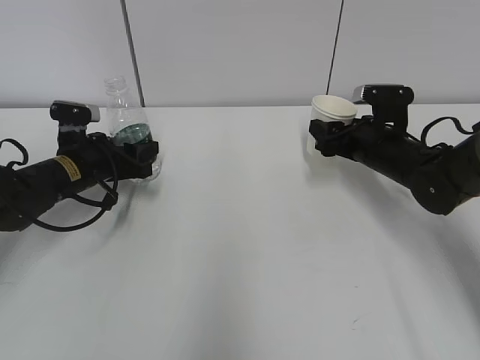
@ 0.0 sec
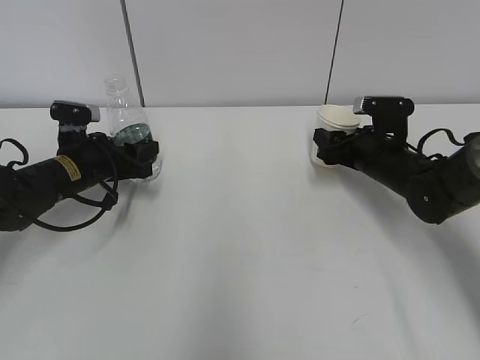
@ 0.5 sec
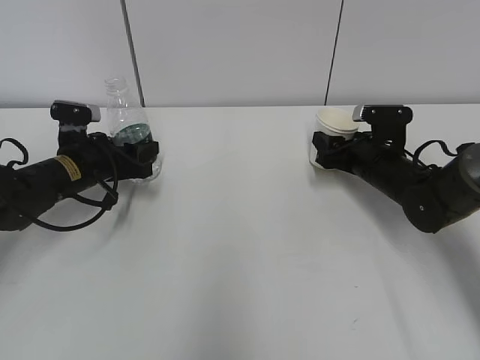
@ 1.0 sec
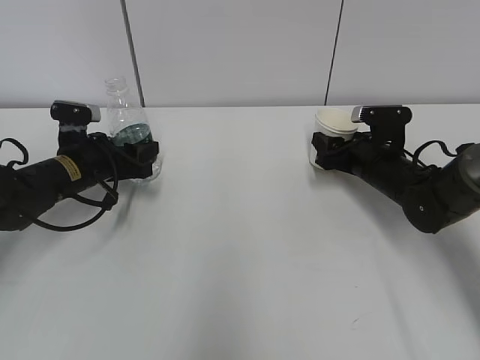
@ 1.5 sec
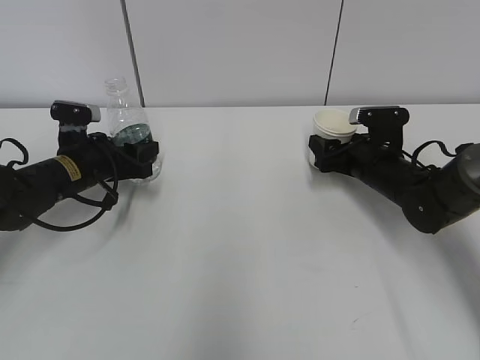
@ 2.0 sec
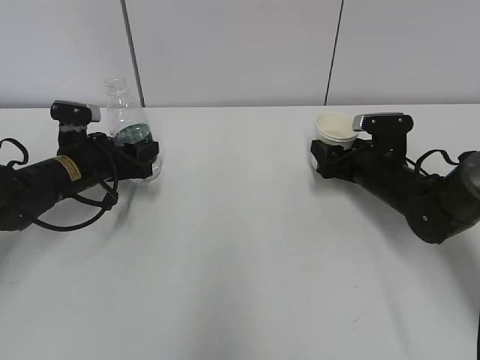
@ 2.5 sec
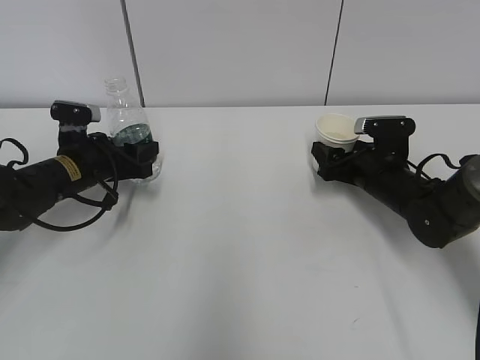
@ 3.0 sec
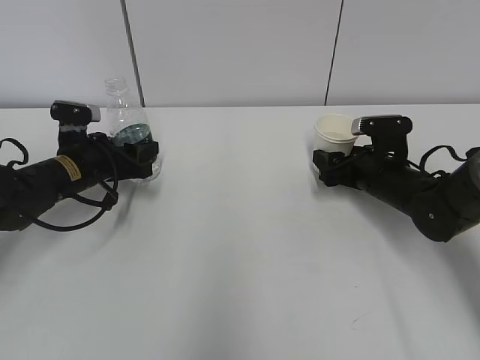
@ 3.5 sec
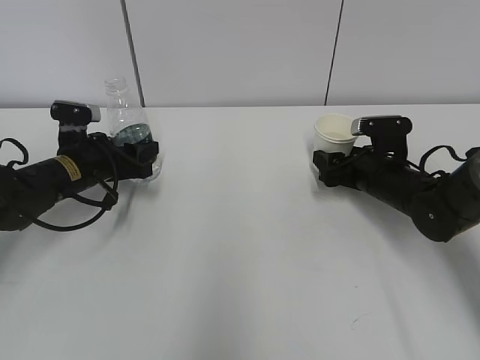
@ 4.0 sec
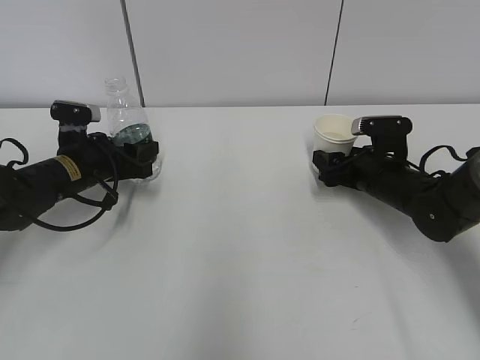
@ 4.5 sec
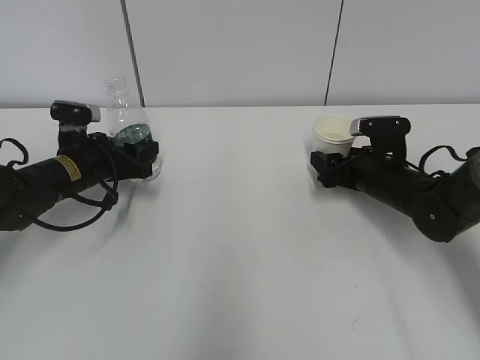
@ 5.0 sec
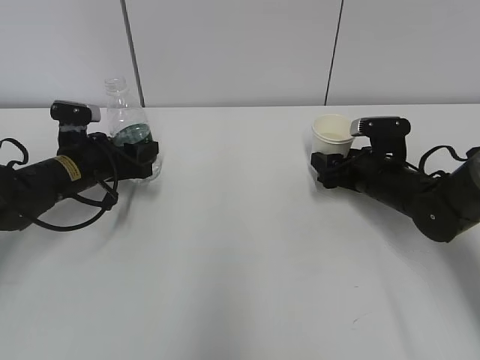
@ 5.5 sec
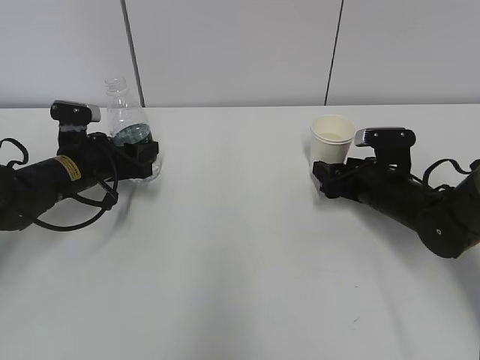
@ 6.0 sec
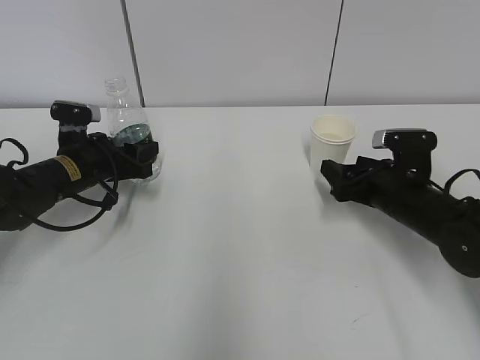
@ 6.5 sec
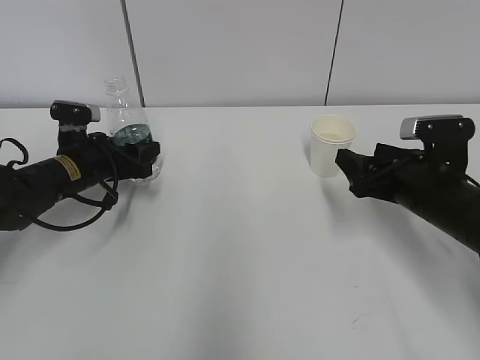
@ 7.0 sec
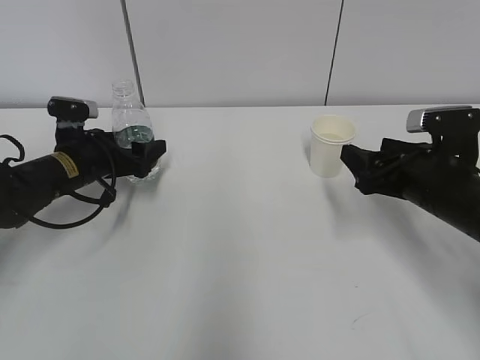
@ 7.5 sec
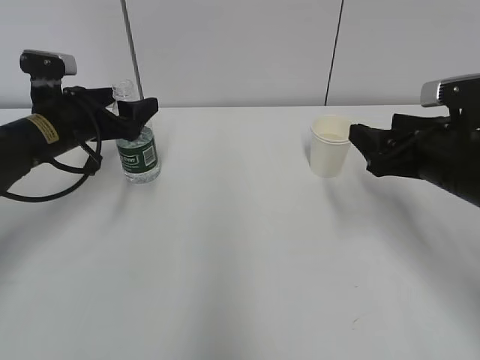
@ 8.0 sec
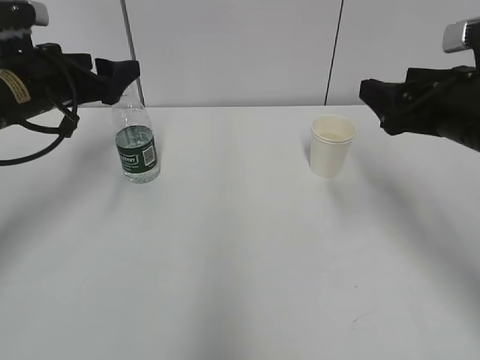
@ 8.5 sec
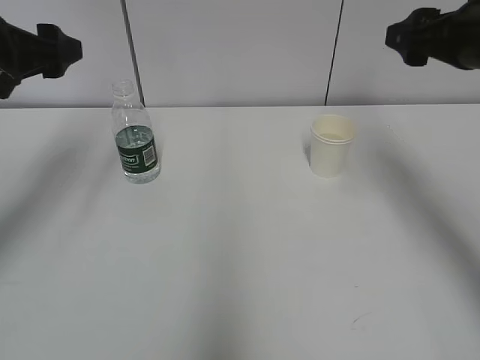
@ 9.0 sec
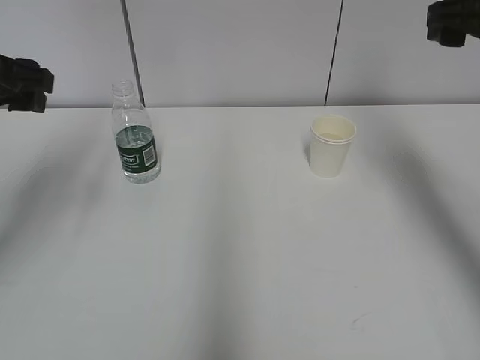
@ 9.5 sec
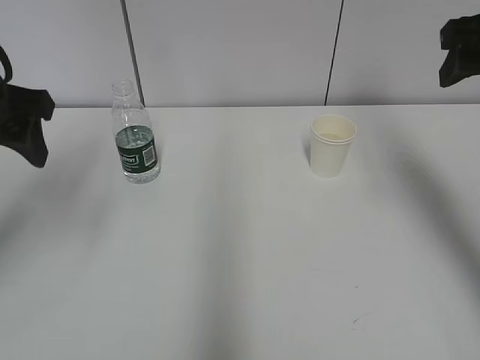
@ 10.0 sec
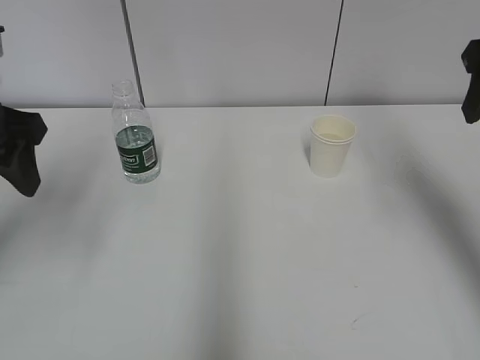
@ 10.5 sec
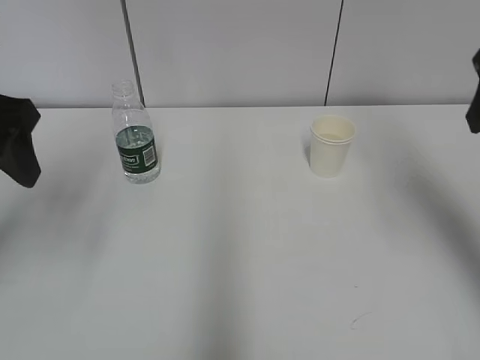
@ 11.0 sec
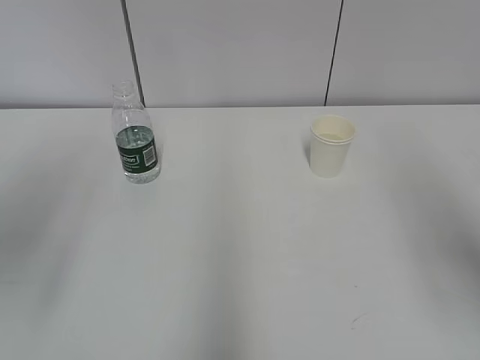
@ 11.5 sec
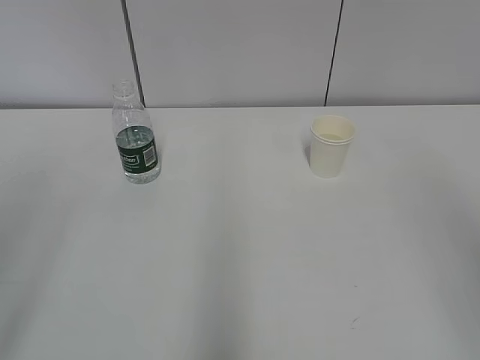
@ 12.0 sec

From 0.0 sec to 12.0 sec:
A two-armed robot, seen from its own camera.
From 0.0 sec to 6.0 sec: The grippers stay close to where they were, moving slightly.
From 6.0 sec to 8.0 sec: The right gripper goes some 15 cm upward and backward, while the left gripper goes roughly 5 cm upward, and opens.
From 8.0 sec to 10.0 sec: The left gripper moves upward and backward, approximately 20 cm. Meanwhile the right gripper is displaced upward by about 15 cm.
From 10.0 sec to 12.0 sec: Both grippers travel together backward, about 20 cm.

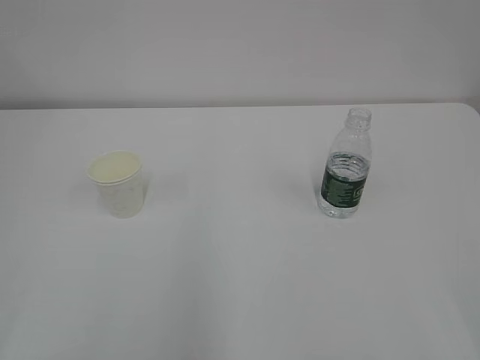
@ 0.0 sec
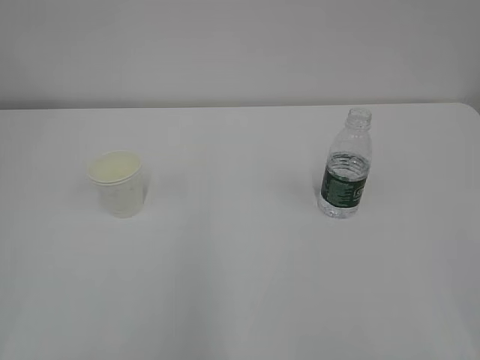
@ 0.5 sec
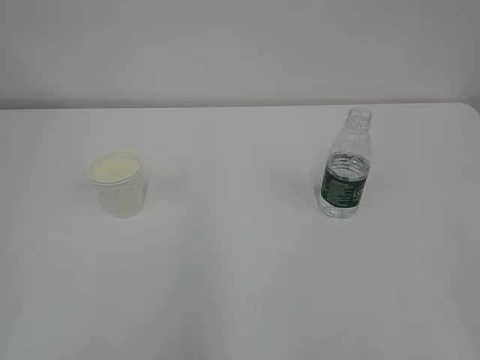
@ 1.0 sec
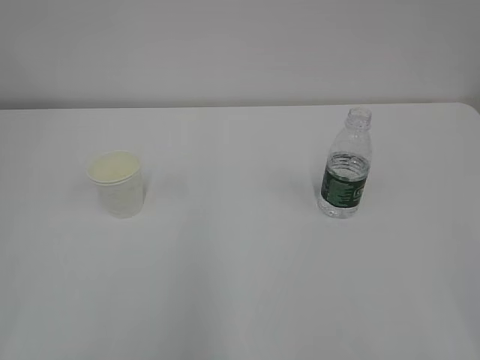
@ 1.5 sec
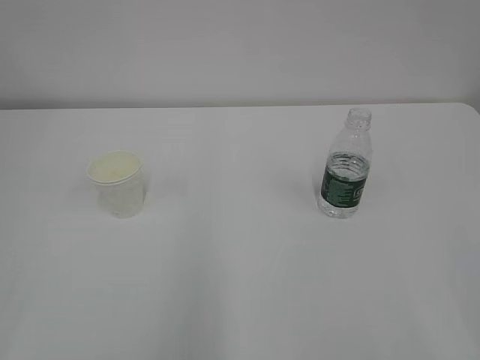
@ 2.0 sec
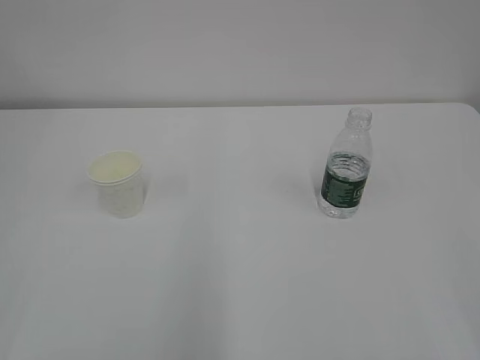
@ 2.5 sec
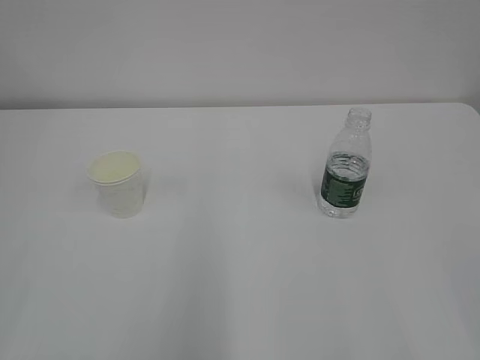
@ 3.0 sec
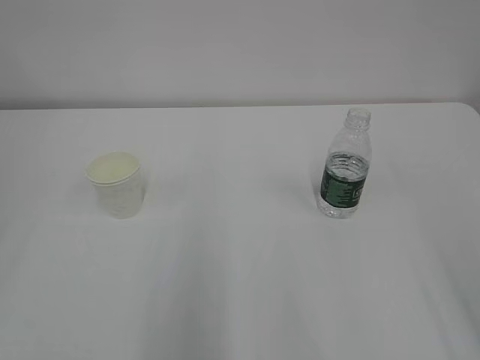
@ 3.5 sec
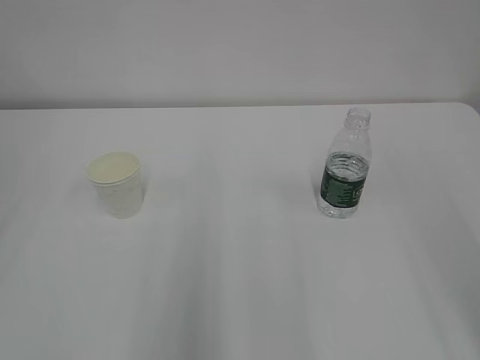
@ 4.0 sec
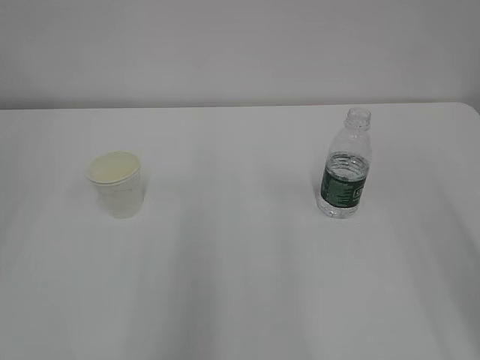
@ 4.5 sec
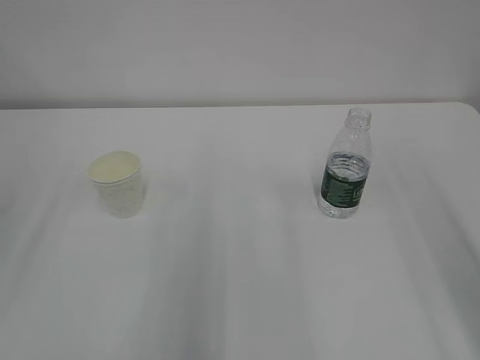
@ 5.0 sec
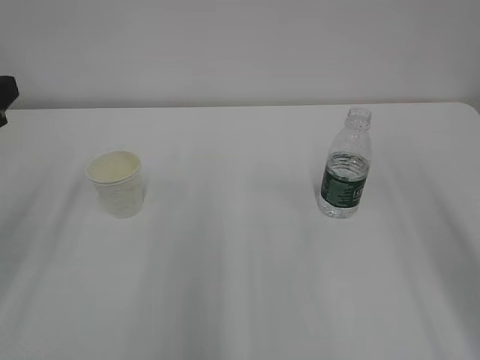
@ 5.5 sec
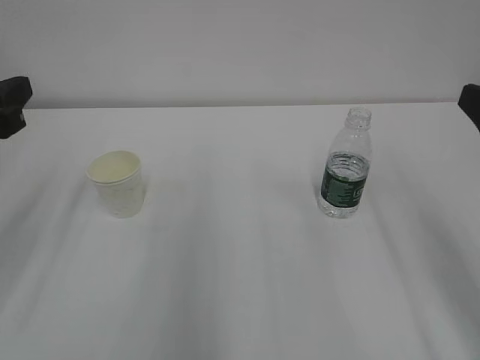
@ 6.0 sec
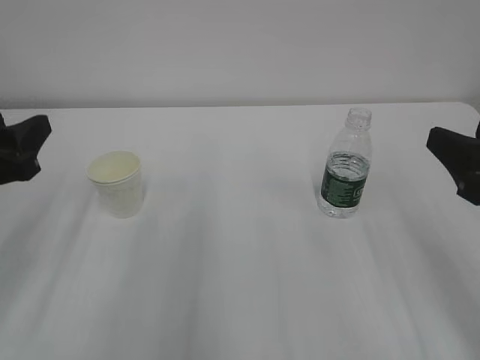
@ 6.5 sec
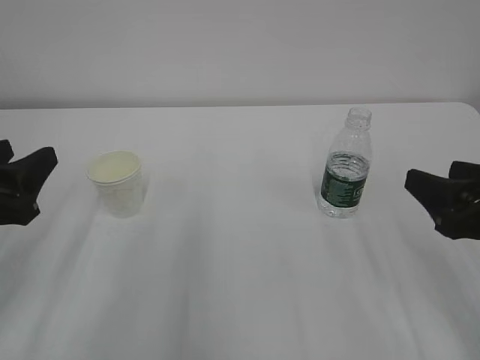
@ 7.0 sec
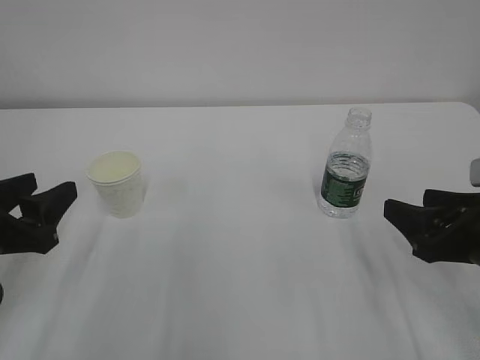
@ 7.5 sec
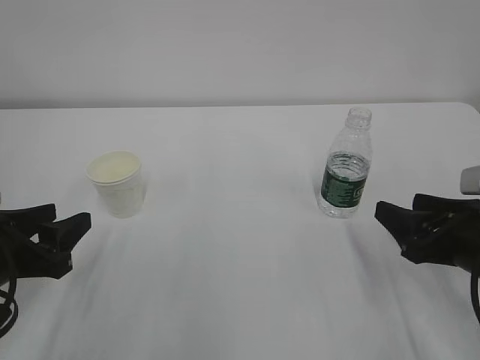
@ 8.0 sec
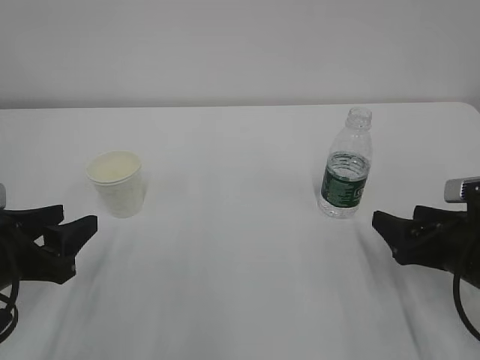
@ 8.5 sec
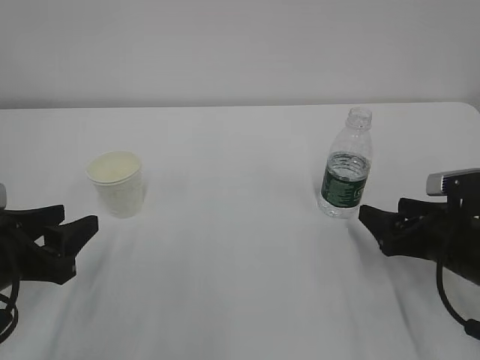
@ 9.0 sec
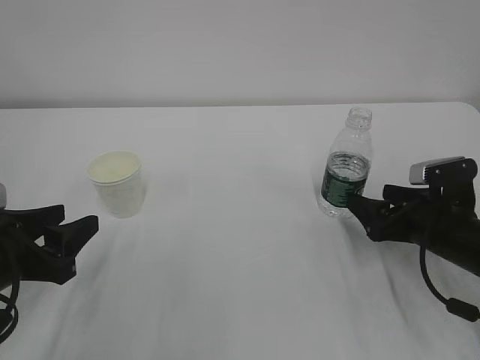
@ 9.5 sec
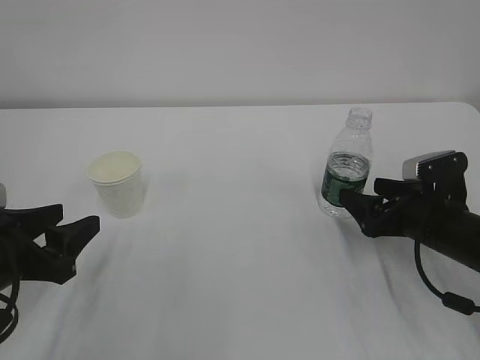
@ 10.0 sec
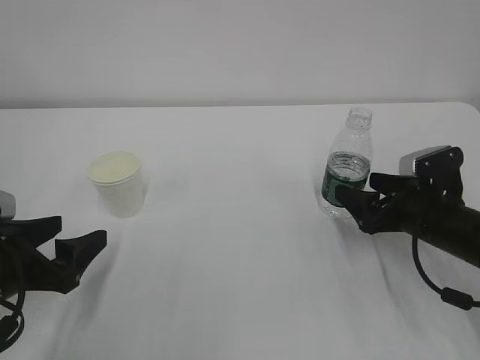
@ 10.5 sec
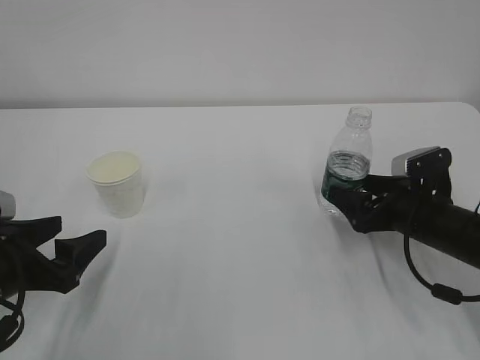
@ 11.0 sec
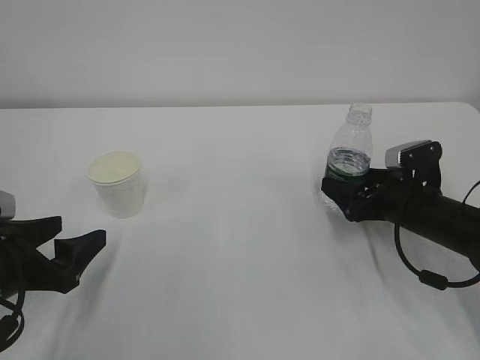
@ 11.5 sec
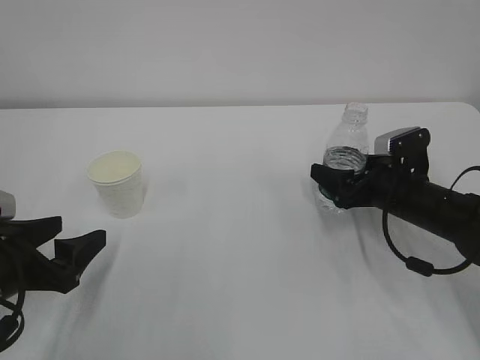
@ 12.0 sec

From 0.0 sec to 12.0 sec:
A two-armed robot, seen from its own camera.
From 4.0 sec to 6.0 sec: The left gripper travels forward, downward and to the right by some 15 cm.
From 6.0 sec to 8.0 sec: Both grippers move downward, roughly 15 cm.
From 8.0 sec to 10.0 sec: The right gripper heads forward, covering approximately 10 cm, and opens up.
From 10.0 sec to 12.0 sec: The right gripper moves forward, about 5 cm. The left gripper opens up.

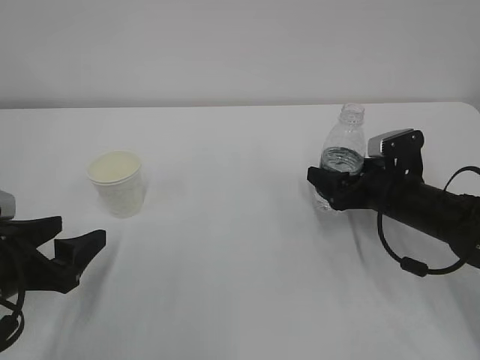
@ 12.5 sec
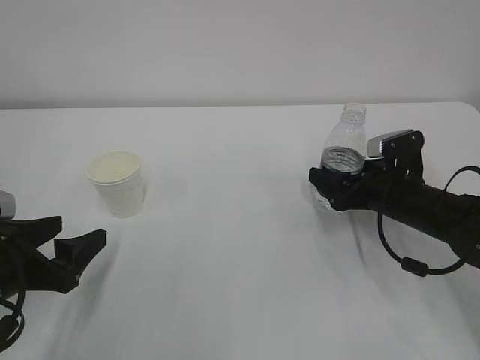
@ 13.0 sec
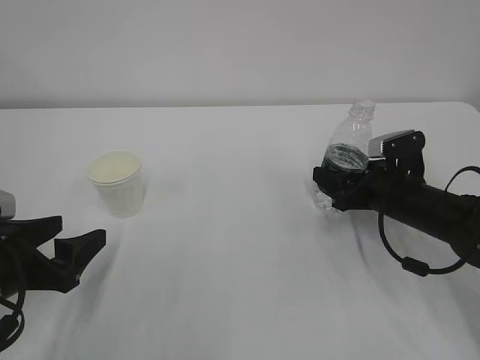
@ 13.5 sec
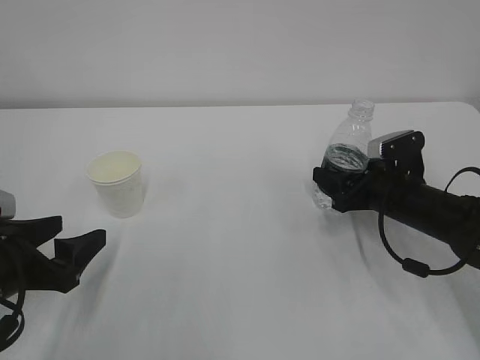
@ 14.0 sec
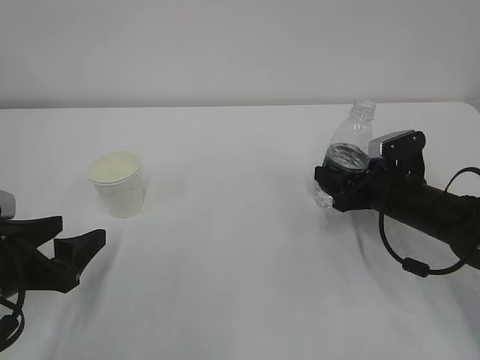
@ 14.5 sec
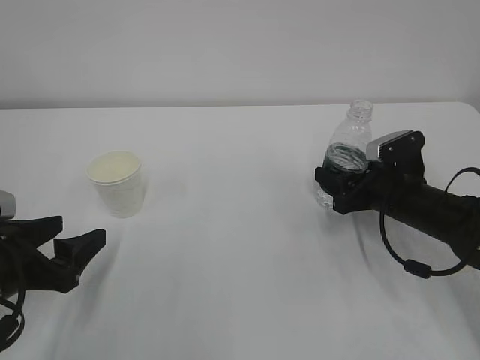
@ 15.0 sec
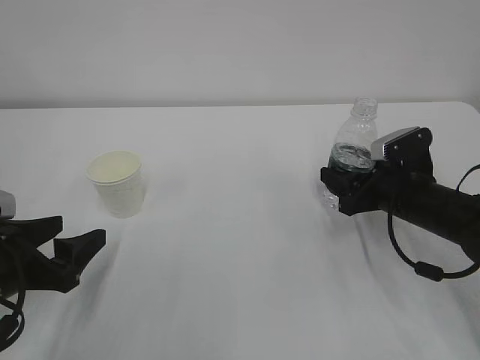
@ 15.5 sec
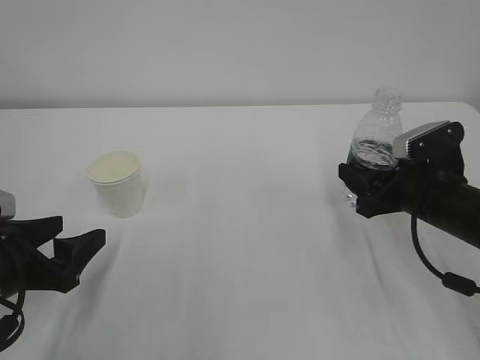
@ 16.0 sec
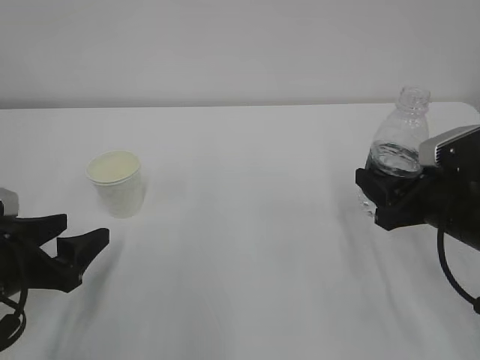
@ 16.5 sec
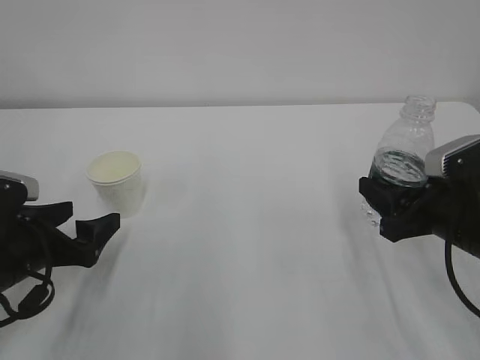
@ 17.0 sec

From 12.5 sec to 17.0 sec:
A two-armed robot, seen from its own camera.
From 12.5 sec to 14.5 sec: The right gripper closes its fingers.
From 14.5 sec to 17.0 sec: The right gripper moves backward and upward, approximately 10 cm.
